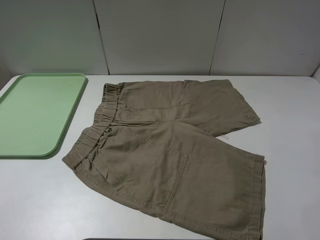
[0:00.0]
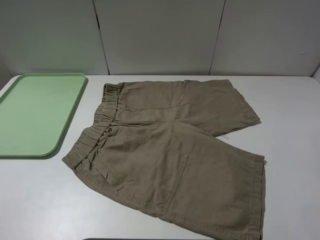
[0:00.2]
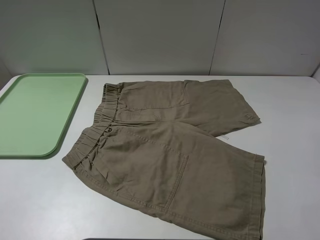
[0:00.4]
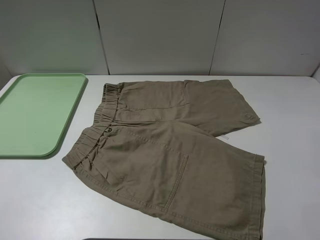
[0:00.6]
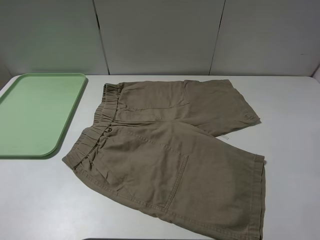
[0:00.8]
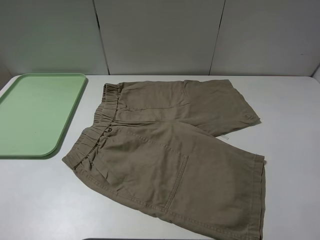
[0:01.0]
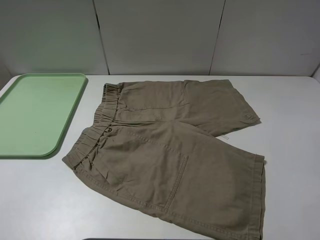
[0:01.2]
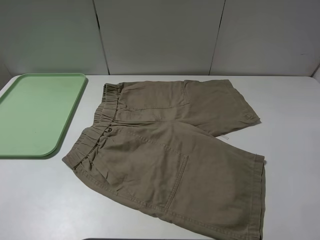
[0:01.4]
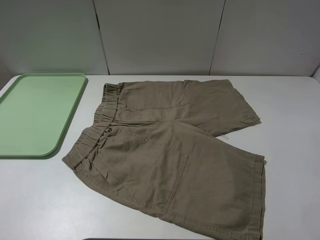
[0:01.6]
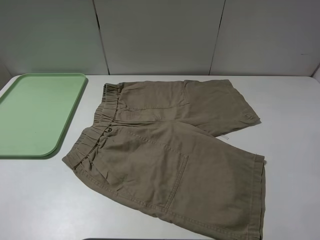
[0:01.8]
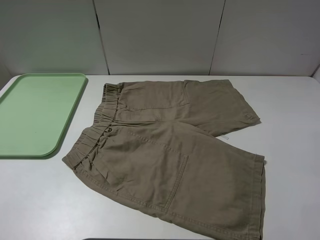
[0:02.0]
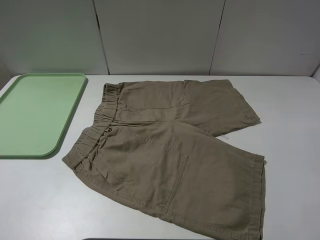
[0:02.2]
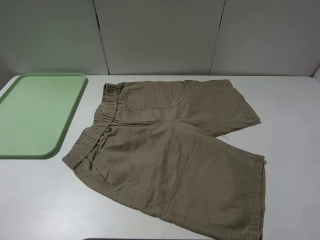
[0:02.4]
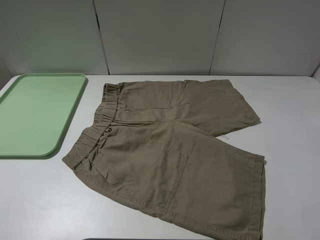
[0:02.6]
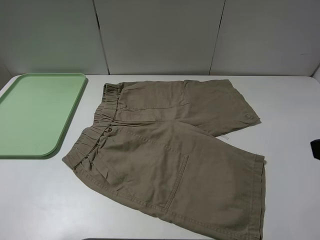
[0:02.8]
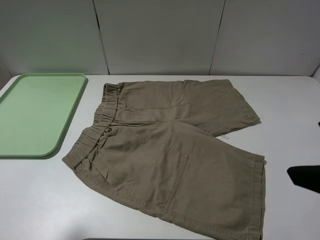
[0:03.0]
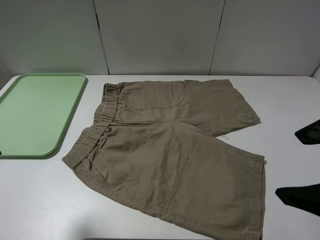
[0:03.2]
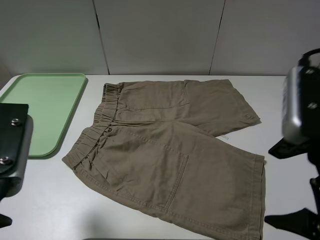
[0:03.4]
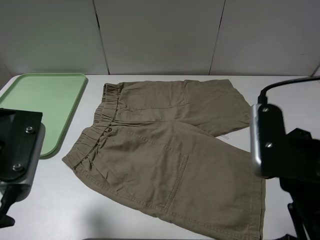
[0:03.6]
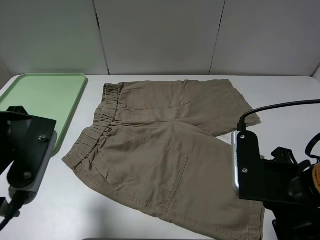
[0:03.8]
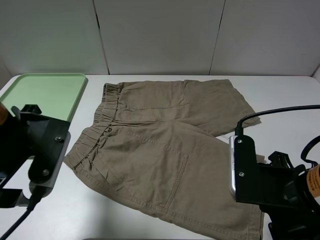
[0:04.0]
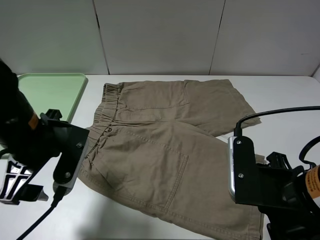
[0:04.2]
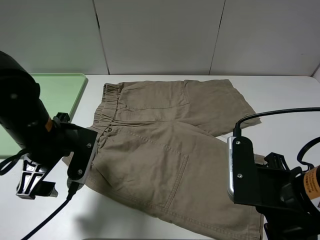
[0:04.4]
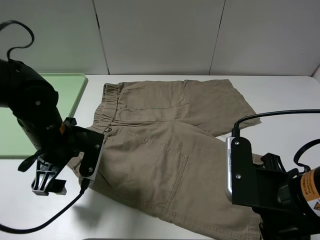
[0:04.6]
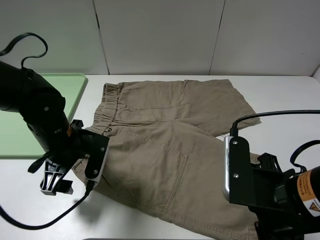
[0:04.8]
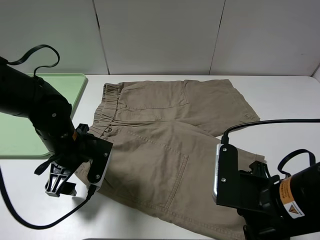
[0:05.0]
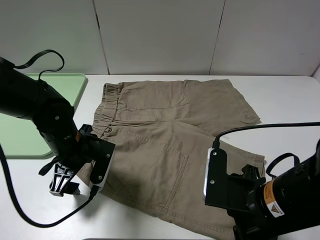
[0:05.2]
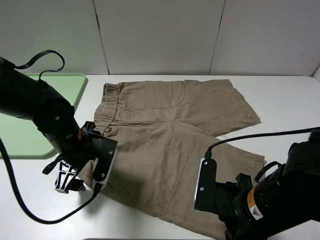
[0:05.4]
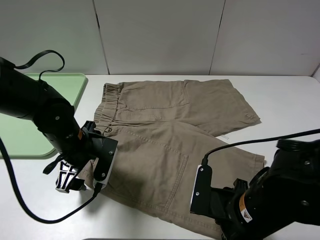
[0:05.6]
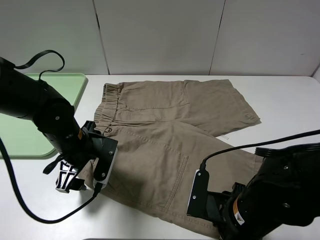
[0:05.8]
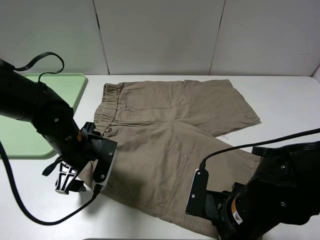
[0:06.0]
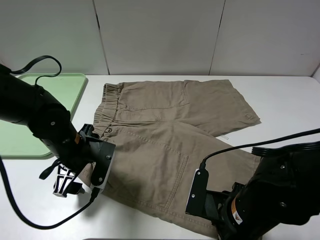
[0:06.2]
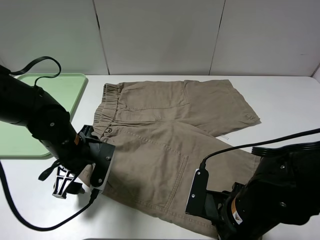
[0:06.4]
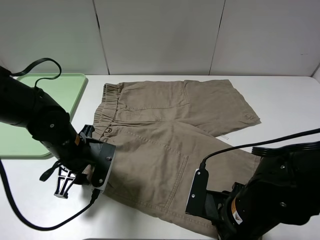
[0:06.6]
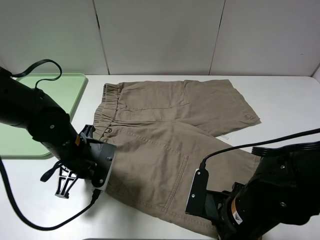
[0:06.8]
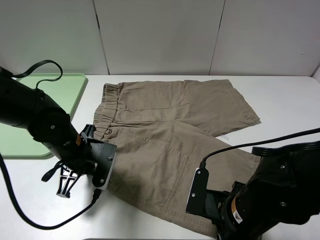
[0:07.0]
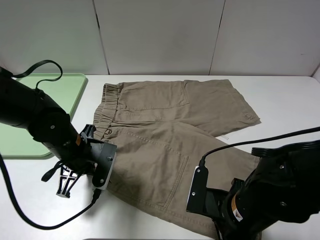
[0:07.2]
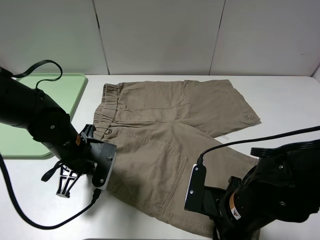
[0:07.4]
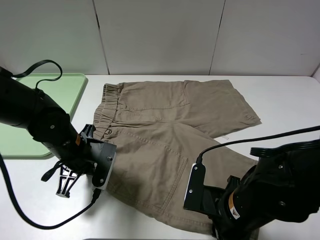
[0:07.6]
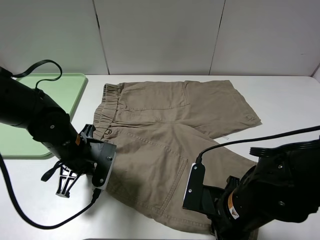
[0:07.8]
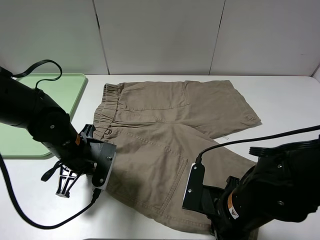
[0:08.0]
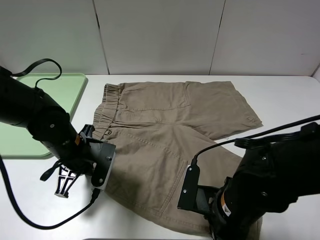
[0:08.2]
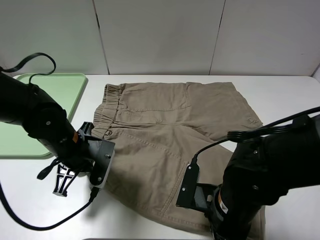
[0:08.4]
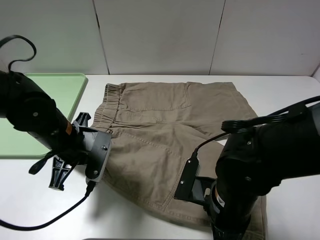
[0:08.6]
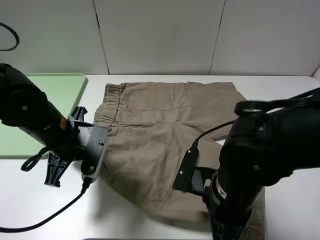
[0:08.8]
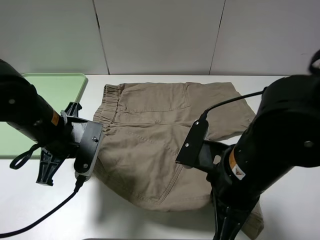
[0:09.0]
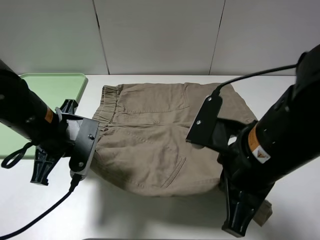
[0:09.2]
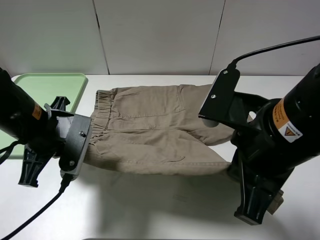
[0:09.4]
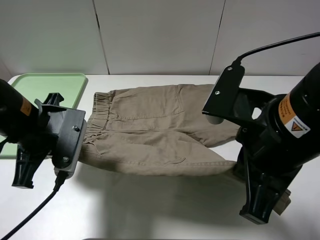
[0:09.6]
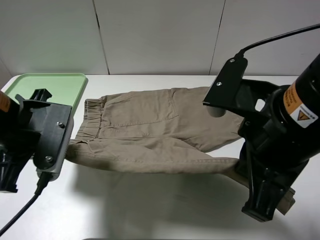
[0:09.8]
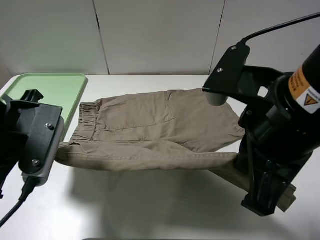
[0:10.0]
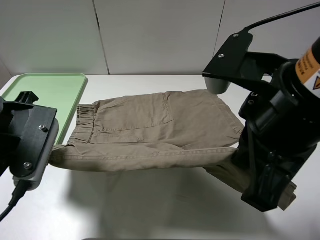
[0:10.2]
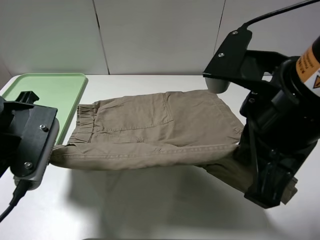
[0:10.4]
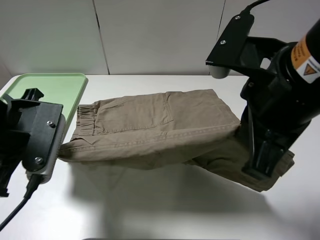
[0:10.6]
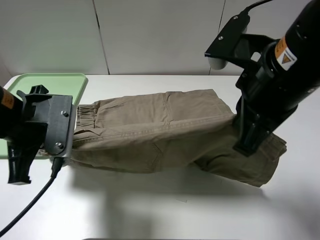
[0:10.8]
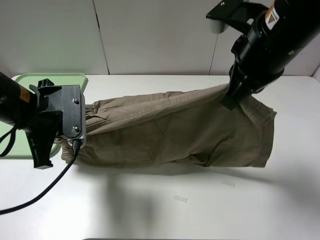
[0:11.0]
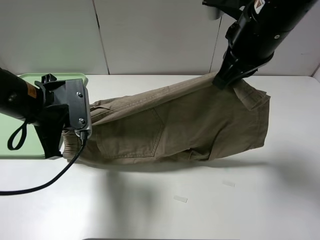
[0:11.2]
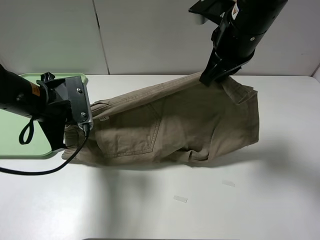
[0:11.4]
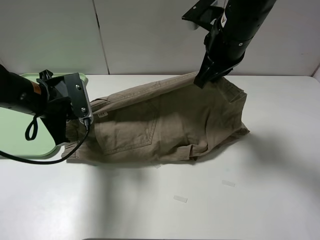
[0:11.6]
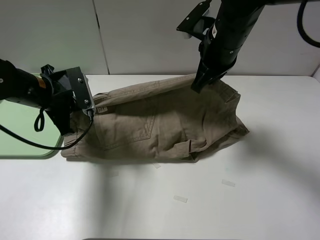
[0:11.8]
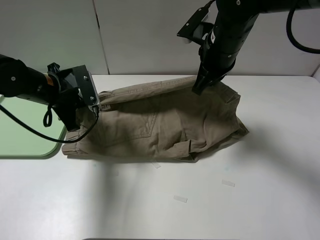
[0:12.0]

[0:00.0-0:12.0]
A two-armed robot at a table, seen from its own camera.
Task of the whole recording: fold the khaki jeans in half with two grippers, then fold them in half again, and use the left claw to place the folded fold khaki jeans on the tray.
Step, 0:00.0 to 0:07.0: Grasp the khaki trousers with the left gripper.
Step, 0:07.2 to 0:07.6: Grasp the khaki trousers with the right gripper.
0:00.0 to 0:01.6: Both grippers stay put.
0:01.6 to 0:03.0: The right gripper shifts some 10 cm forward and to the left.
0:03.0 to 0:04.4: The right gripper moves downward and to the left, roughly 15 cm; the left gripper goes about 20 cm downward, forward and to the right.
0:04.4 to 0:06.0: The right gripper goes some 10 cm downward, while the left gripper moves downward, some 5 cm.
0:06.0 to 0:07.6: The left gripper closes up. Meanwhile the right gripper closes its fingers.
0:07.6 to 0:09.0: Both grippers move upward, roughly 10 cm.
0:09.0 to 0:10.4: The right gripper goes roughly 10 cm upward, while the left gripper shifts some 10 cm upward and backward.
0:10.4 to 0:12.0: The right gripper heads forward, covering about 20 cm. The left gripper heads forward and downward, covering about 15 cm.

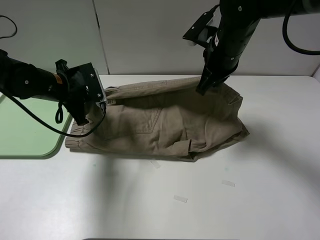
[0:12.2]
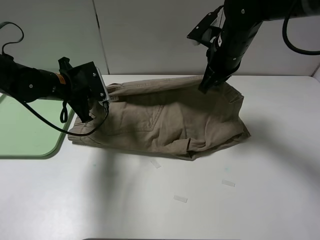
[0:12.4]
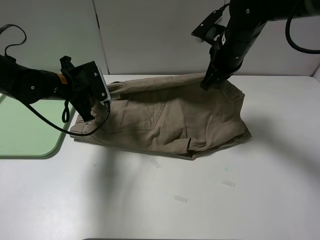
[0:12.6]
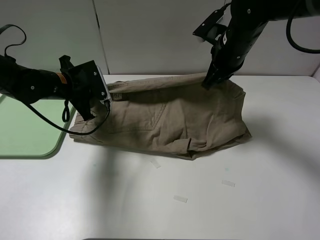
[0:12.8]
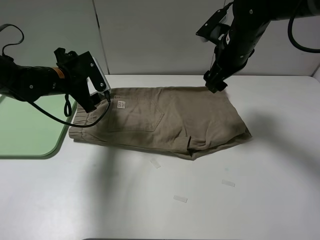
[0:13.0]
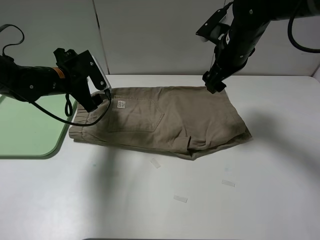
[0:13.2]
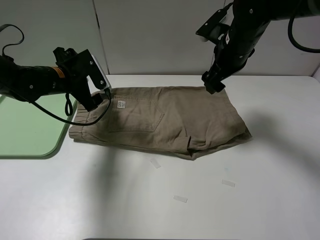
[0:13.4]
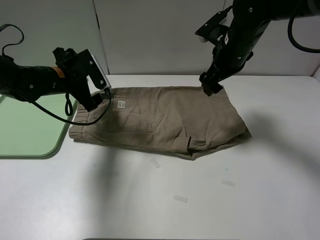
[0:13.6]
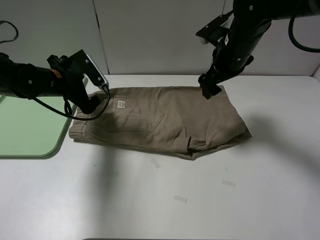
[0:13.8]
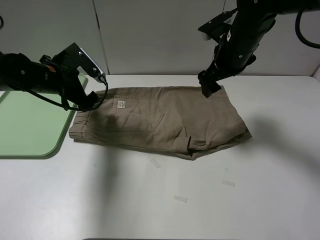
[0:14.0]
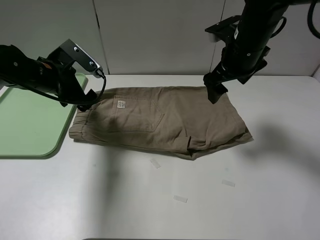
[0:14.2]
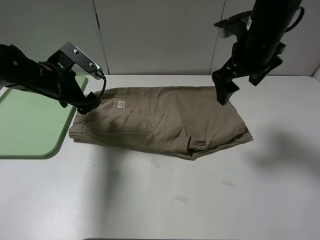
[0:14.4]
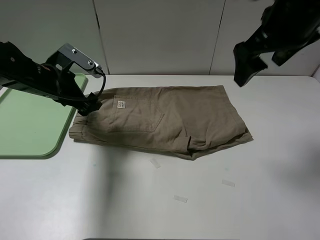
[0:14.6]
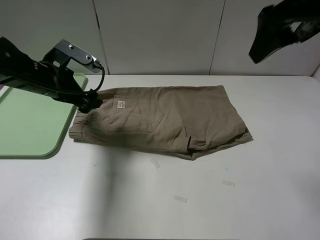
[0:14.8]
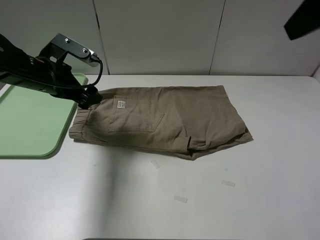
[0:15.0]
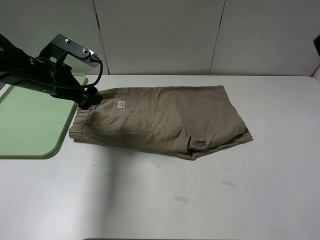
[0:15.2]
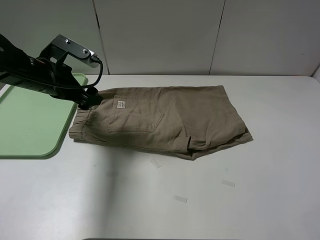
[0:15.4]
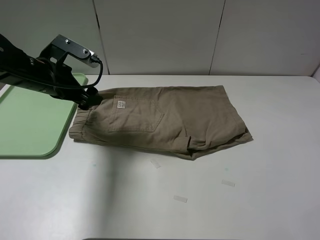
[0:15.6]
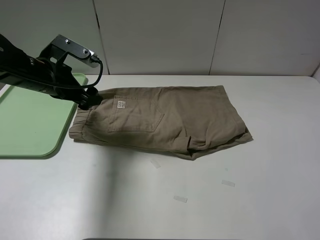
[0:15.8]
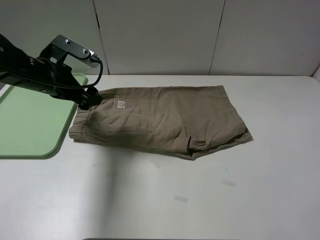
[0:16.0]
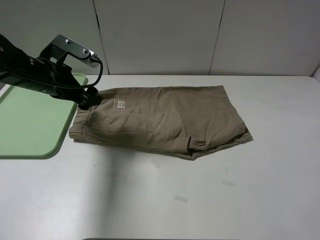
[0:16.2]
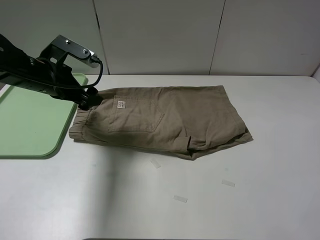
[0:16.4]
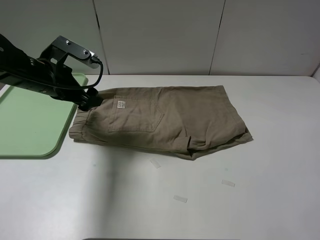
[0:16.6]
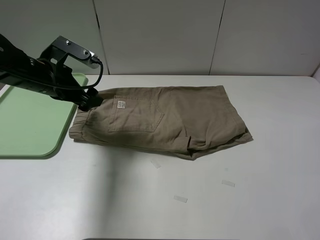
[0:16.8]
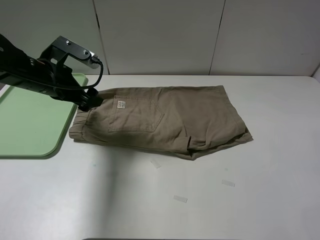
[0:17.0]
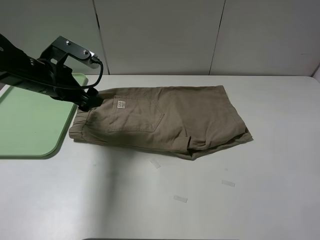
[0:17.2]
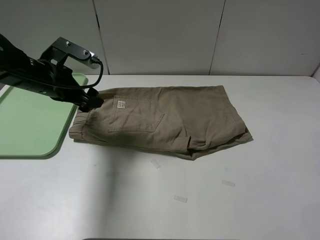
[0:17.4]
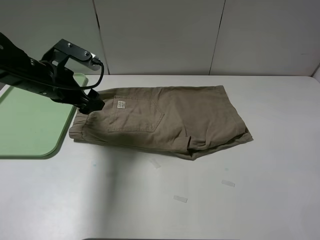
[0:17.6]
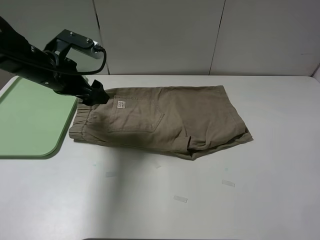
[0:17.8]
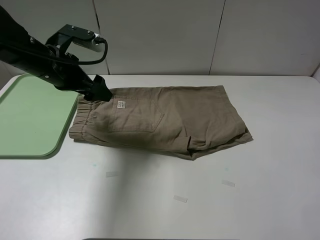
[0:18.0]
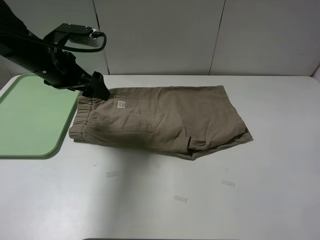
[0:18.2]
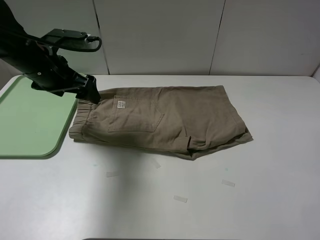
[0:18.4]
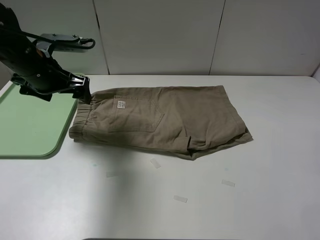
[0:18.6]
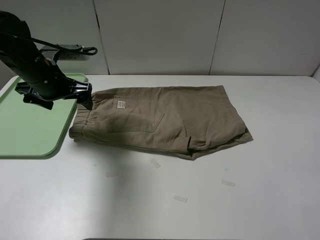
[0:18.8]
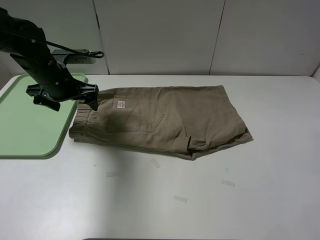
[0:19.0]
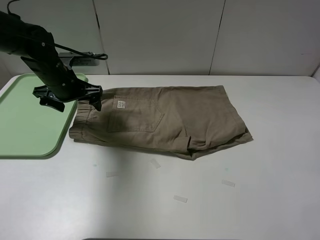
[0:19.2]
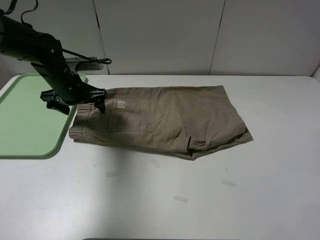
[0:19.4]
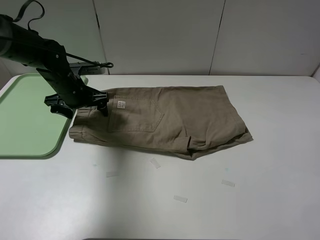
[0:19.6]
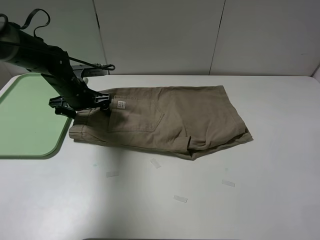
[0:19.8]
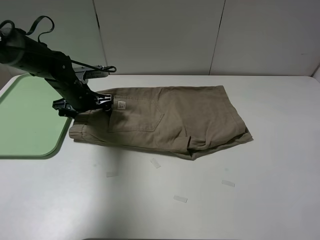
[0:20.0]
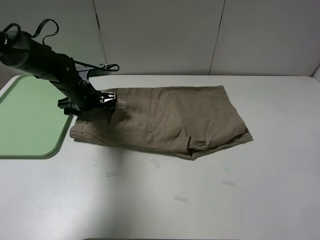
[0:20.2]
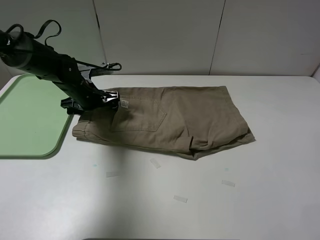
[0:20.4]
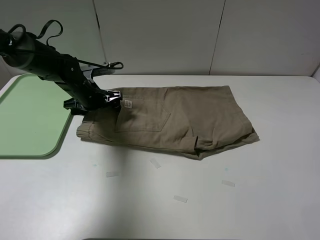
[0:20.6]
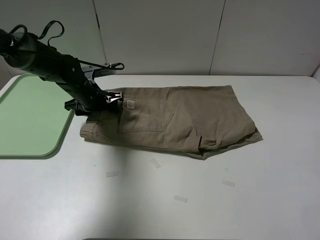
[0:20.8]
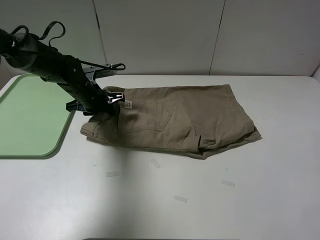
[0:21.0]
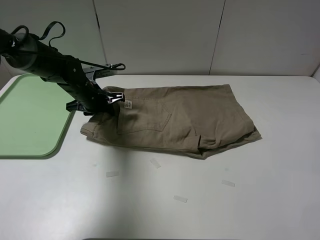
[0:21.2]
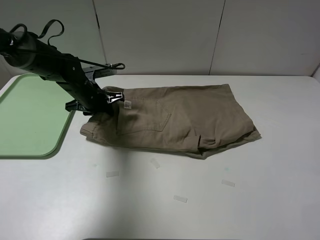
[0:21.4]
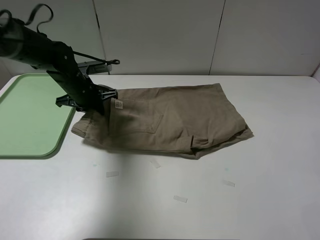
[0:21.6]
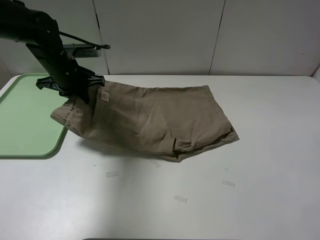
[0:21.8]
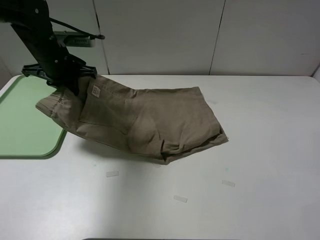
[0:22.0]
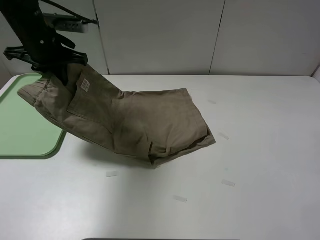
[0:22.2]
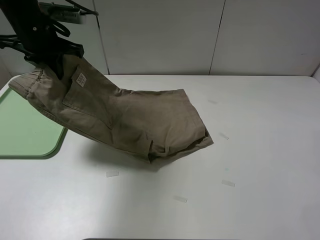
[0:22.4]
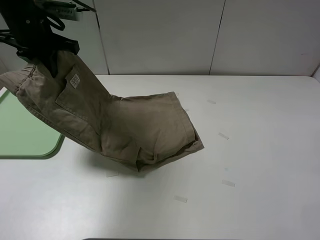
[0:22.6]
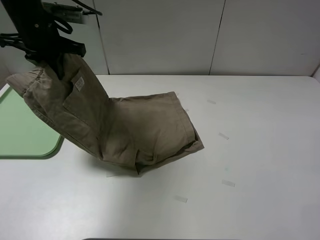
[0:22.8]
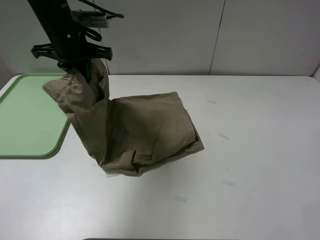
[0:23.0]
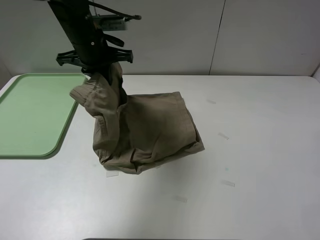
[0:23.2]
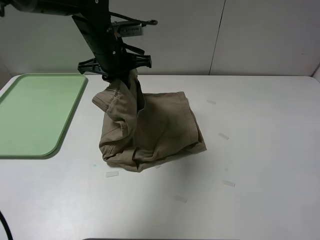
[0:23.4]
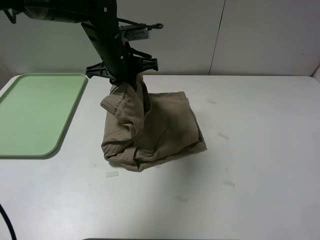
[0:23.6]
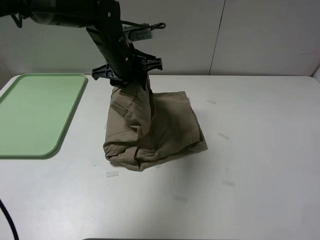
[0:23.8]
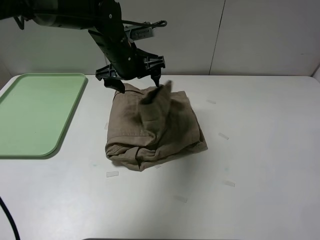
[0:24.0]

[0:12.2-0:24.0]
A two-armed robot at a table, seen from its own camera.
Task of the whole recording: fold the khaki jeans in half with two grippers, then fold them in half again, and use the left claw to place the folded fold khaki jeans on the tray.
Step, 0:13.4 to 0:21.2: Grasp the khaki trousers with the left gripper.
Step, 0:21.4 to 0:24.0: Fold the khaki trousers from left to right with the left gripper.
0:12.2 to 0:13.6: The right gripper opens its fingers, while the left gripper opens.
0:13.6 to 0:15.2: The right gripper shifts roughly 30 cm backward and upward.
0:16.6 to 0:18.2: There are only small adjustments of the grippers.
0:18.2 to 0:19.6: The left gripper moves downward and forward, approximately 10 cm.
0:19.6 to 0:21.0: The left gripper closes up.
0:21.0 to 0:22.6: The left gripper moves upward, roughly 20 cm.
0:22.6 to 0:24.0: The left gripper is displaced to the right and downward by some 20 cm, and opens.
